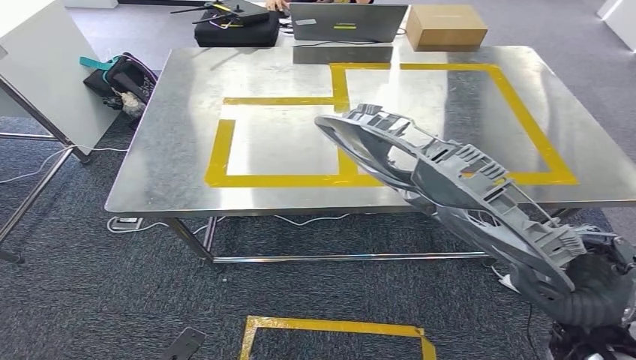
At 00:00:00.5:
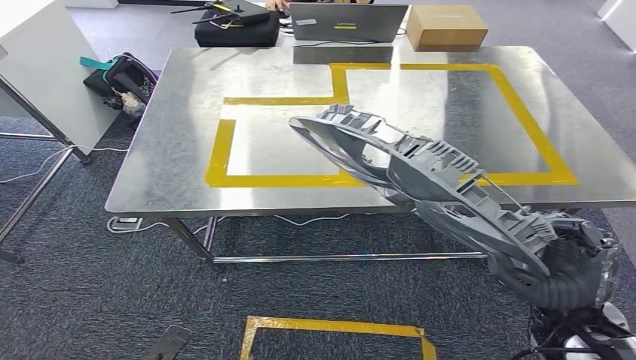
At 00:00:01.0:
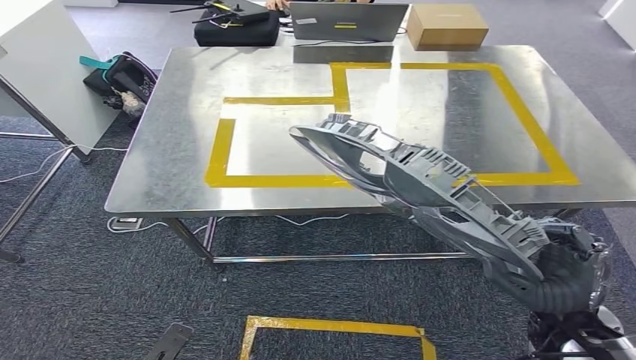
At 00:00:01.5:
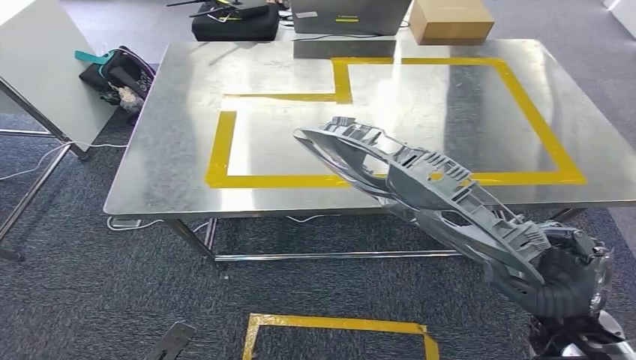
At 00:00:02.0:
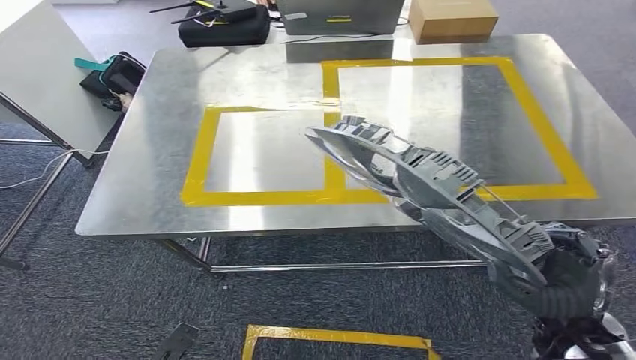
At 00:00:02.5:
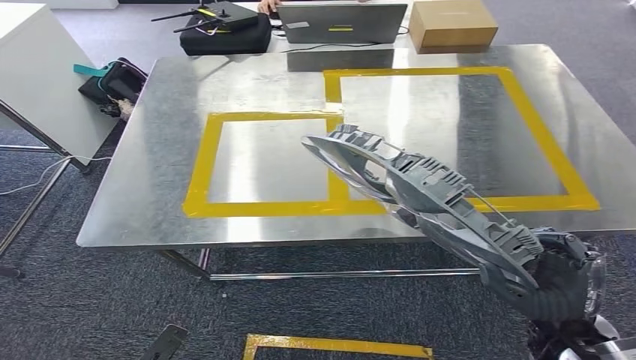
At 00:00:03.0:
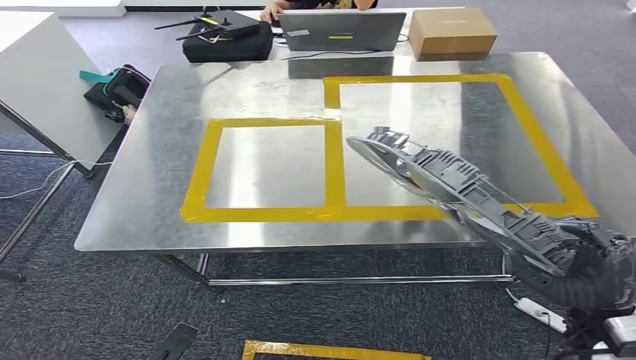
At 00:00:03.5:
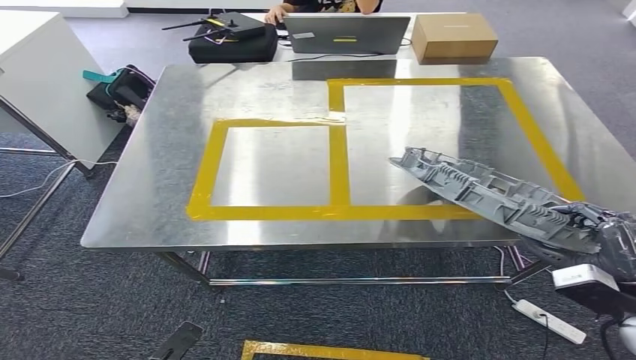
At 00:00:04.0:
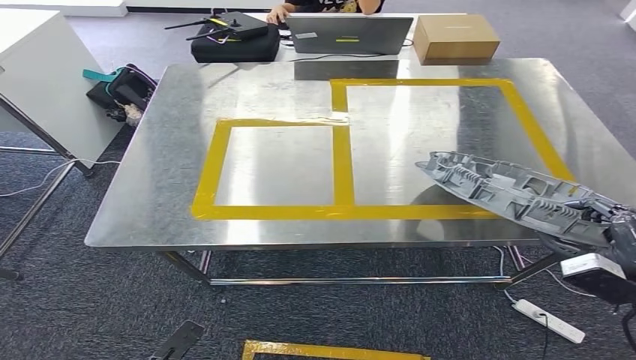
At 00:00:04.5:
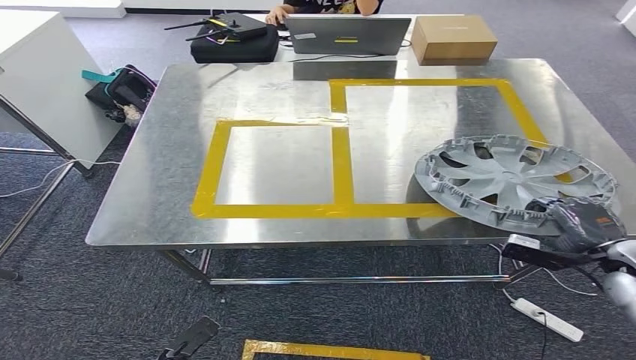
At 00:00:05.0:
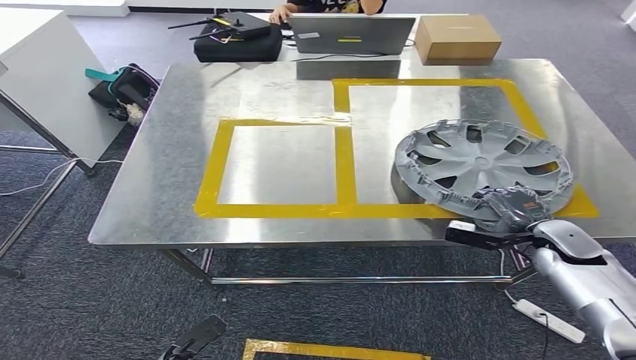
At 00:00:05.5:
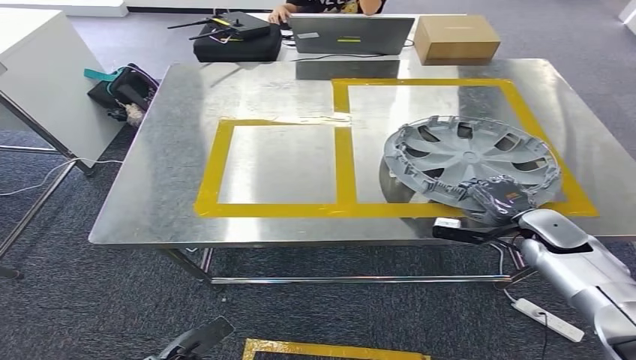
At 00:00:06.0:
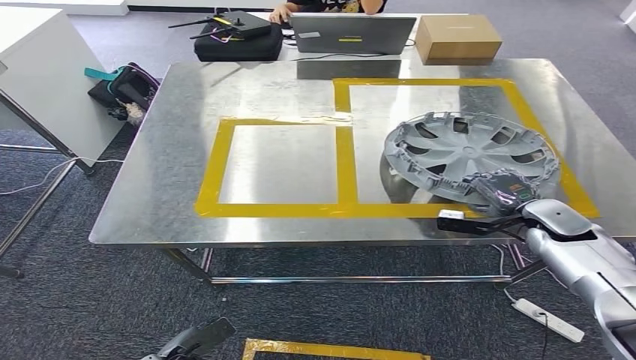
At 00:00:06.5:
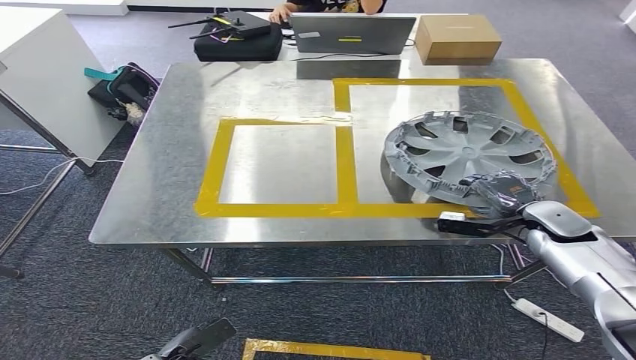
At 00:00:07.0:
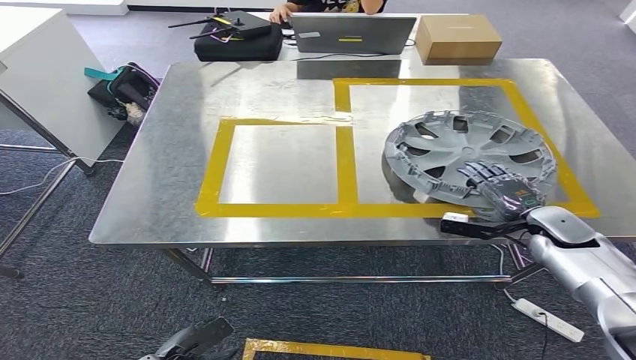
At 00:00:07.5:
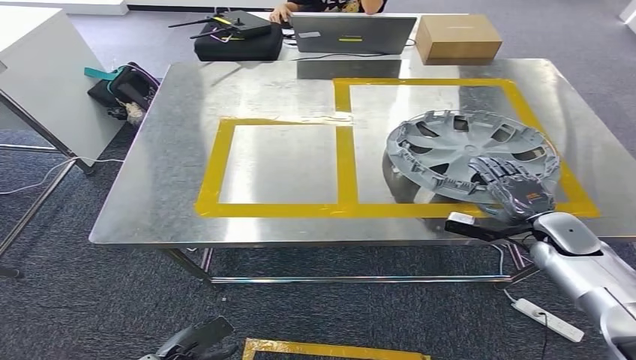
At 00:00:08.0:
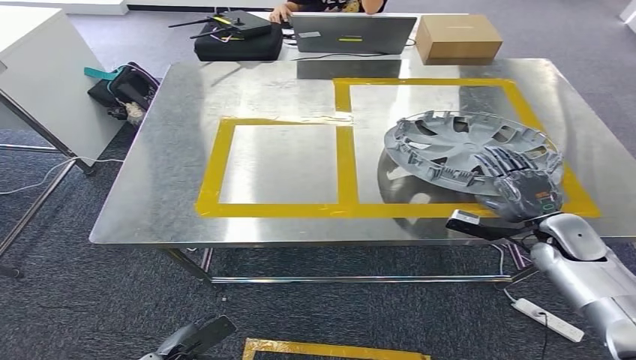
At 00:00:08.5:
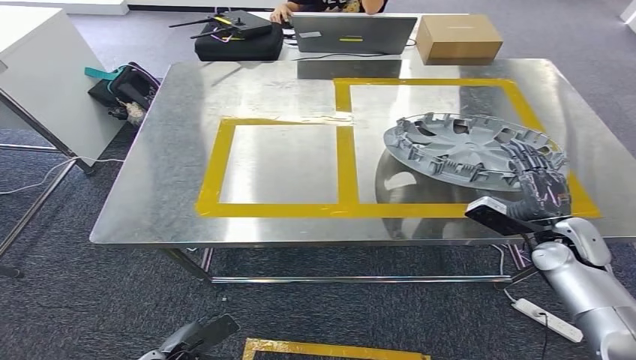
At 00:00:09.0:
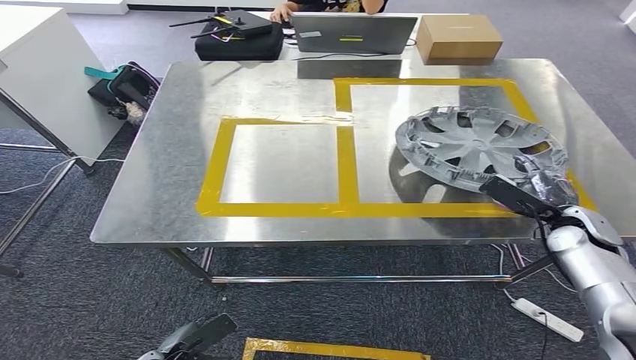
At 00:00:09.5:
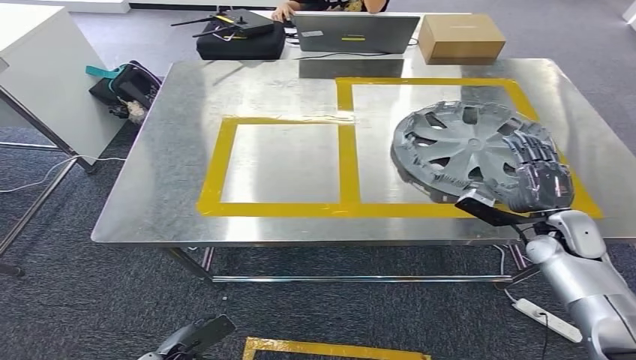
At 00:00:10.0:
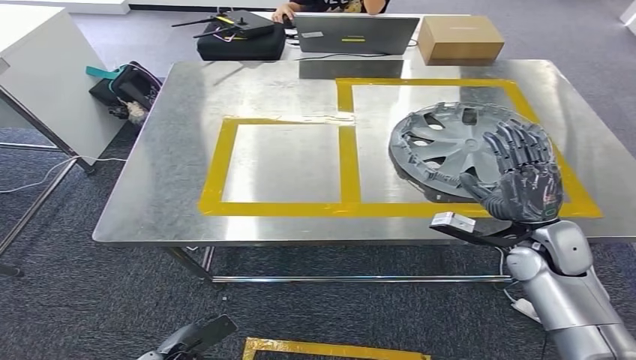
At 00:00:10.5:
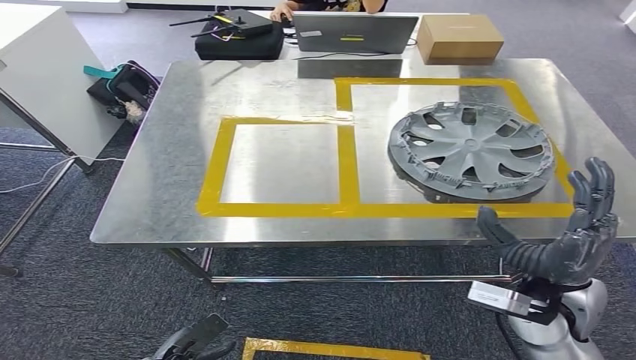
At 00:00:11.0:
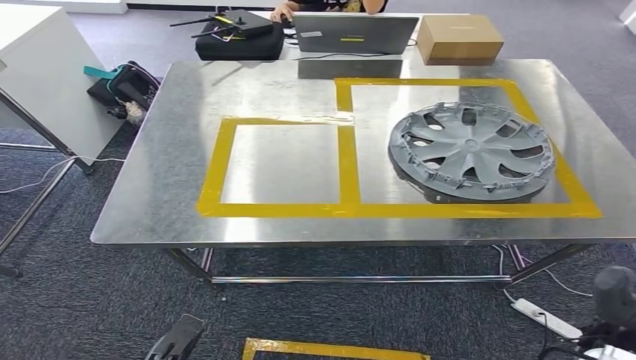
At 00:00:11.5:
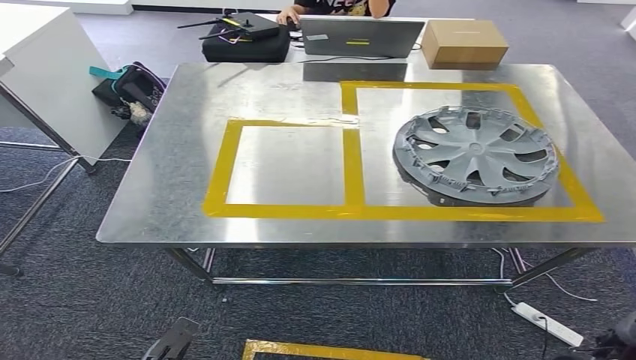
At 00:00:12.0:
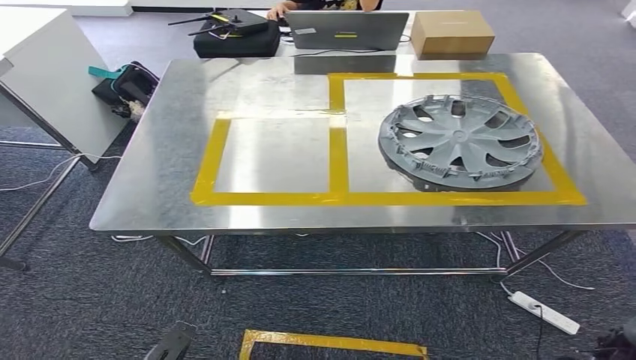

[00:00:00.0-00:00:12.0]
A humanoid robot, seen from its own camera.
Step, 00:00:00.0 to 00:00:10.0: Insert the small parts into the corresponding holes on the workbench.
00:00:04.0 to 00:00:06.0: The right hand is displaced forward by roughly 20 cm.
00:00:08.0 to 00:00:10.0: The right hand heads to the left, covering some 5 cm.

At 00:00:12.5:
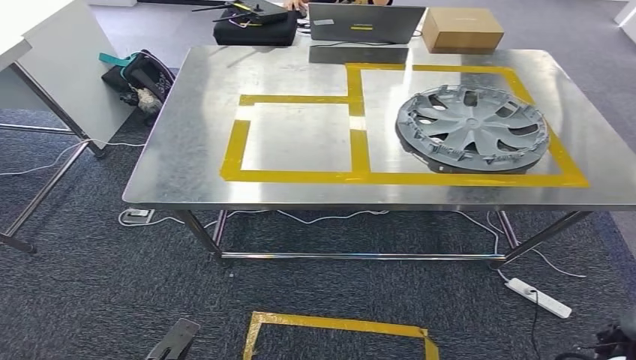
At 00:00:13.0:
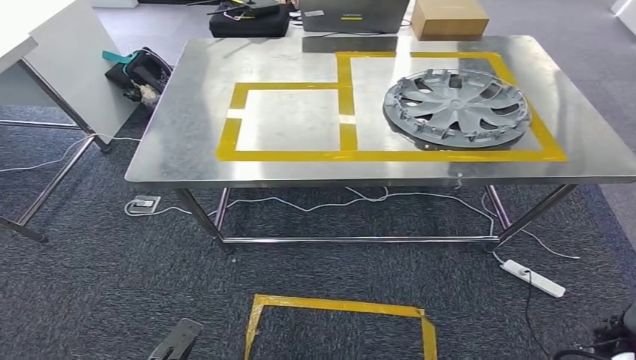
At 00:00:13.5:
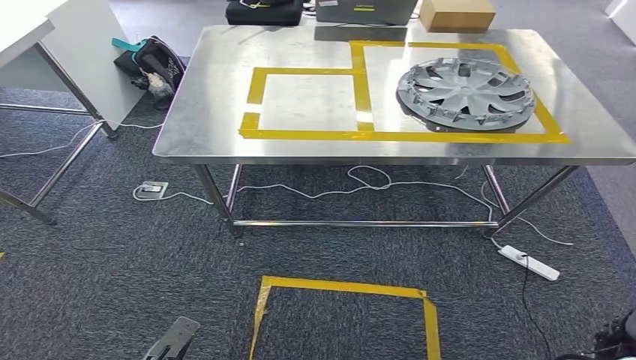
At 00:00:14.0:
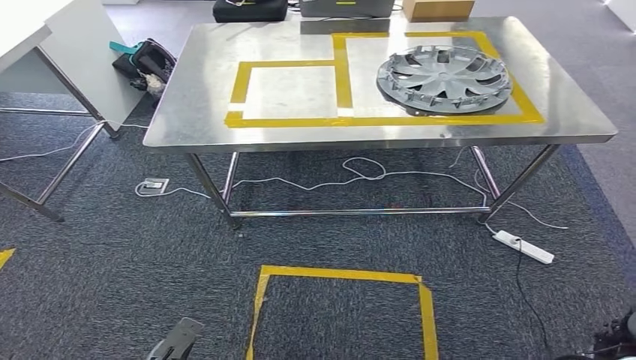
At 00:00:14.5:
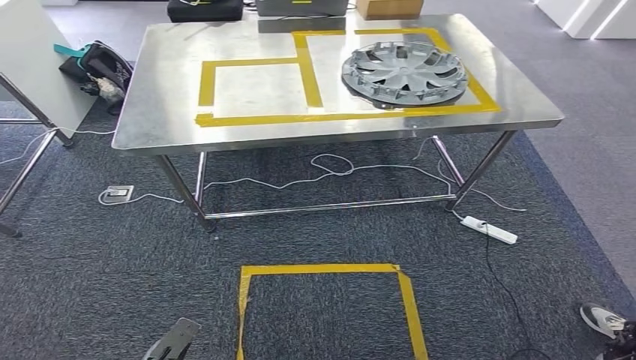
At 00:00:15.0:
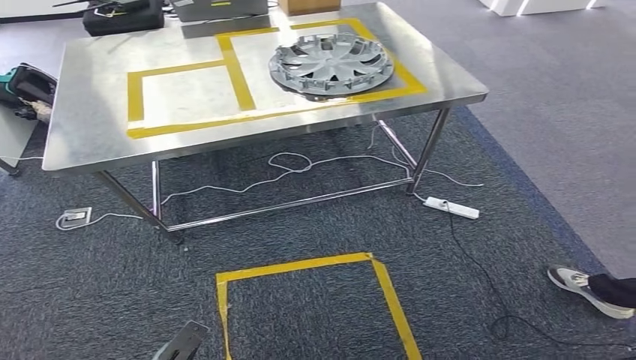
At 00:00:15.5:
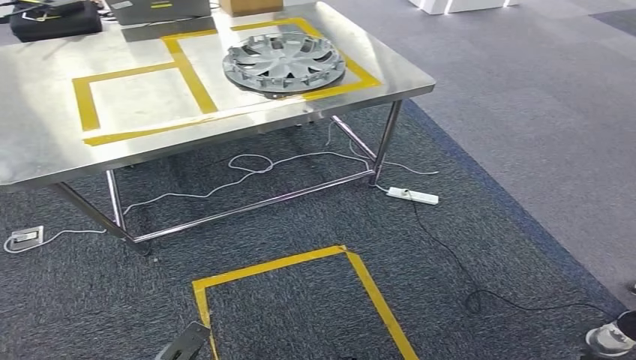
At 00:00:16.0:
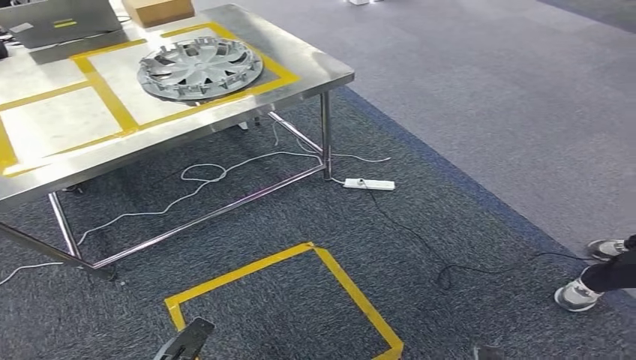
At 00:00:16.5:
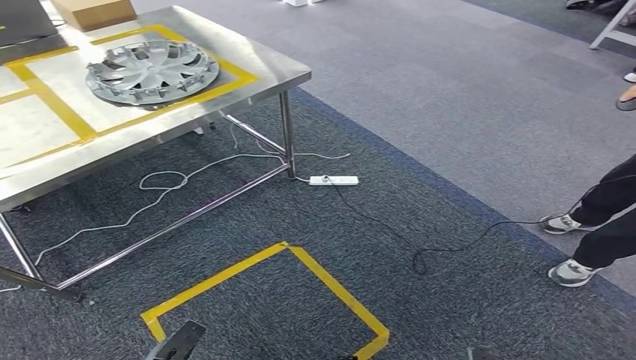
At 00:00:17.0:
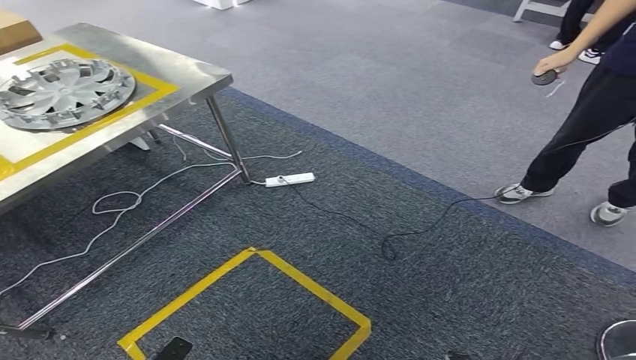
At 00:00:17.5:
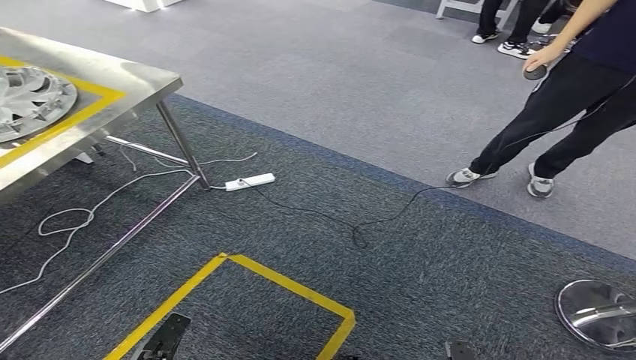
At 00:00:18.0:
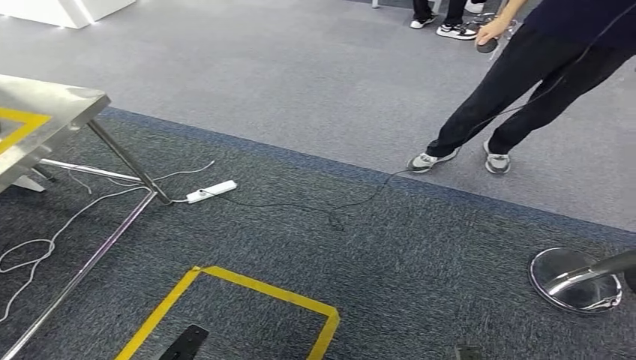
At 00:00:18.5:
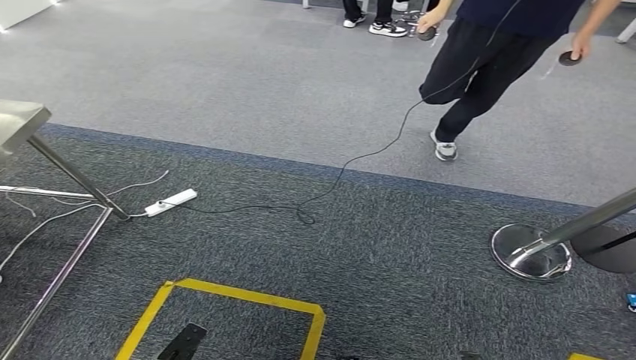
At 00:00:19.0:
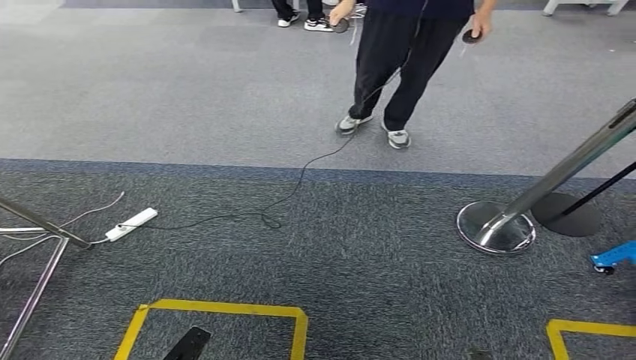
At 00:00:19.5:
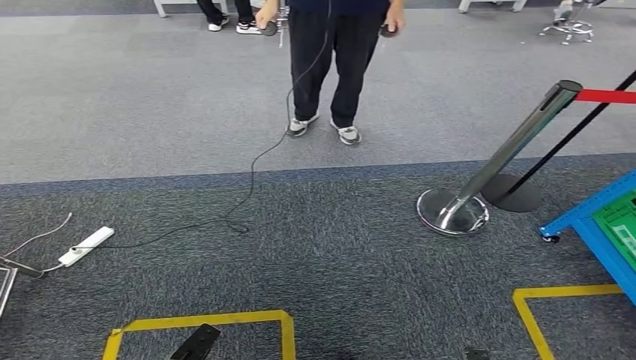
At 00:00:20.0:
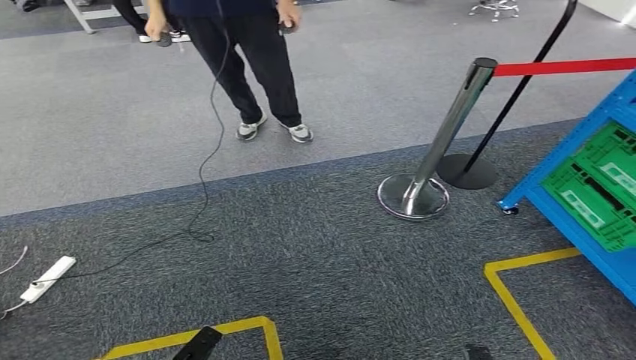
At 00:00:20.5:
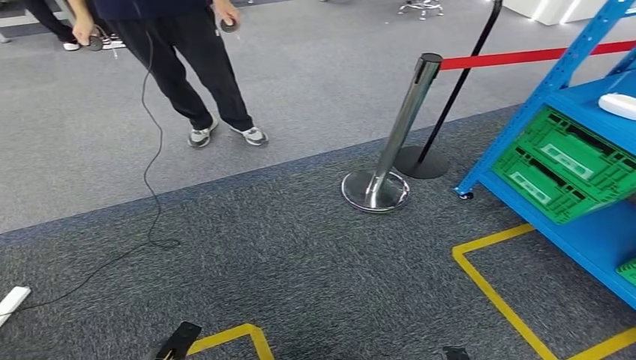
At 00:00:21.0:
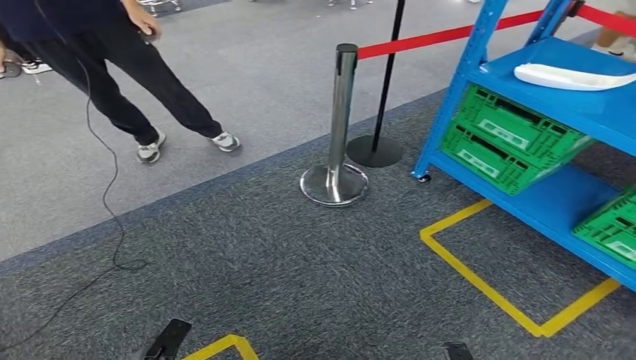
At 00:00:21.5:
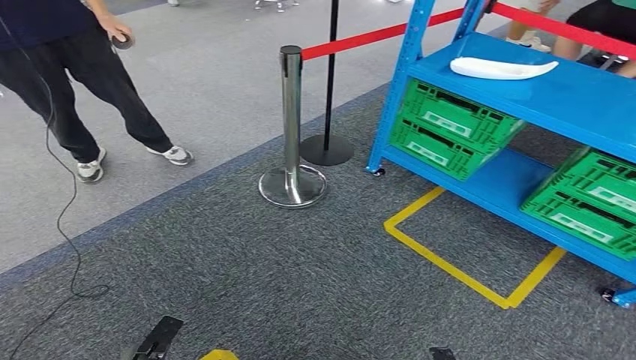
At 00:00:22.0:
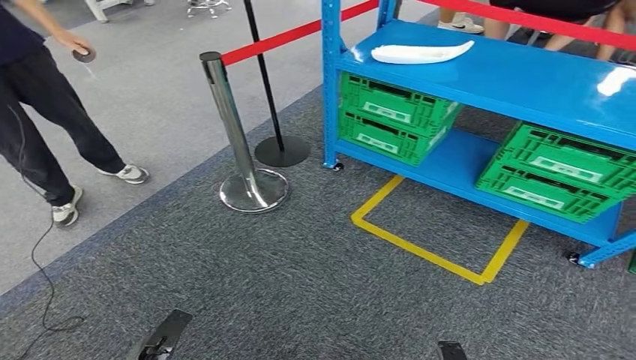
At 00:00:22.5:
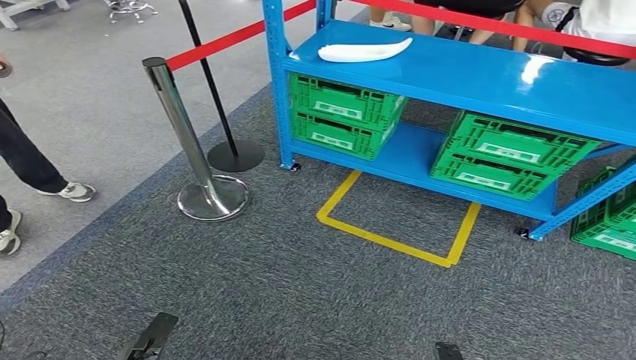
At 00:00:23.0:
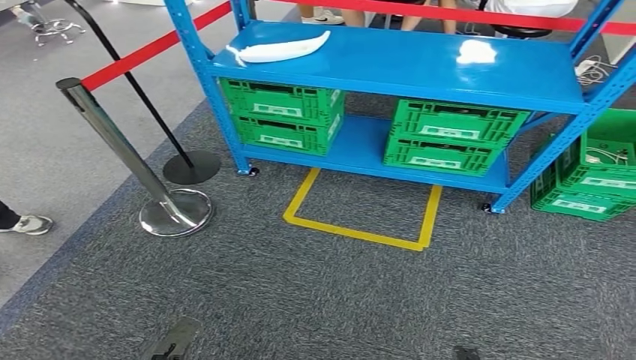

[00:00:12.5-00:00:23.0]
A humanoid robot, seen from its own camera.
Step, 00:00:12.5 to 00:00:23.0: Move to the initial position at the workbench.
